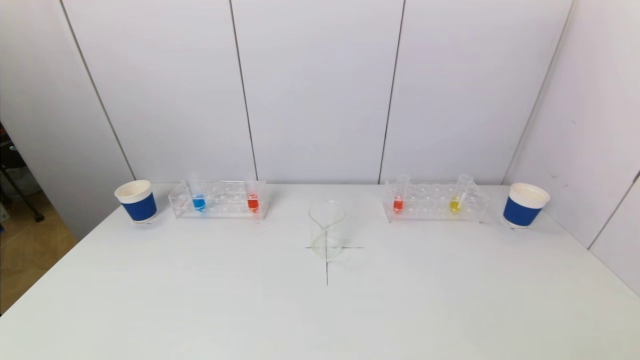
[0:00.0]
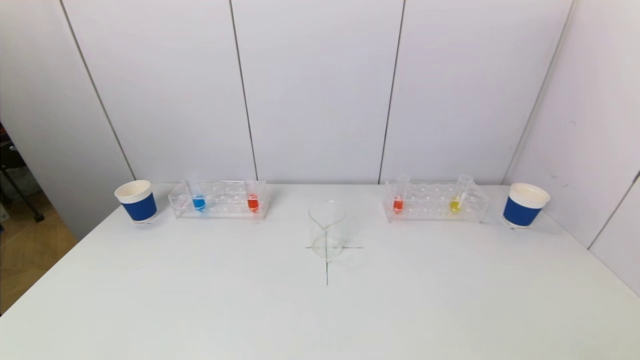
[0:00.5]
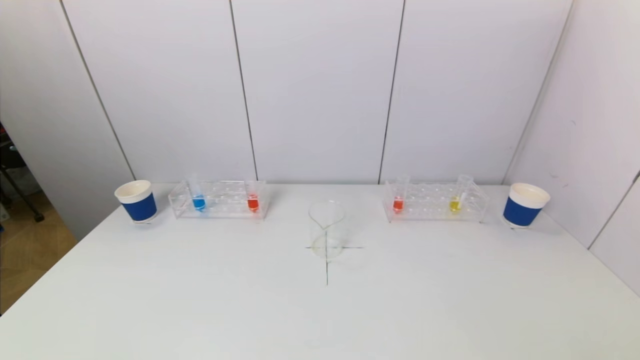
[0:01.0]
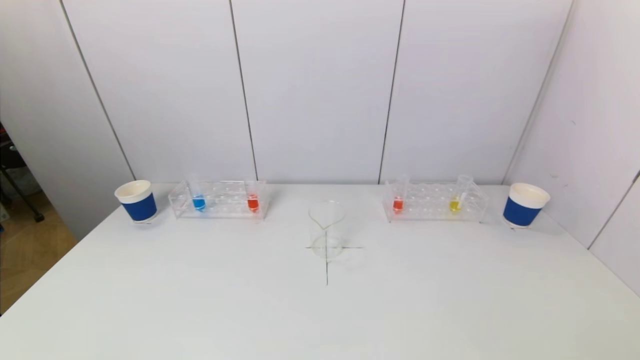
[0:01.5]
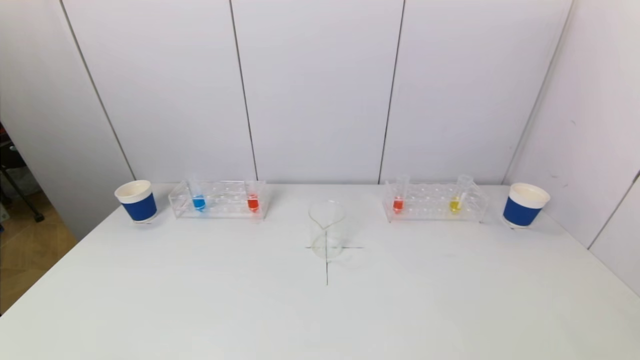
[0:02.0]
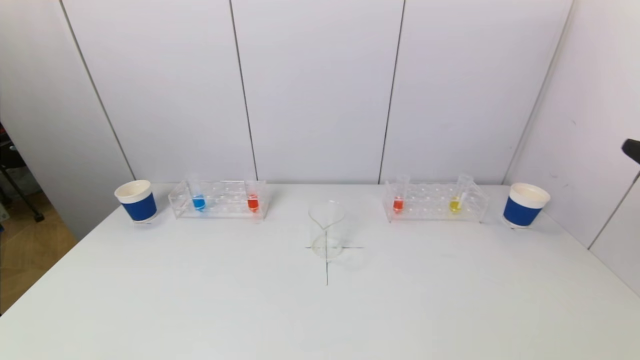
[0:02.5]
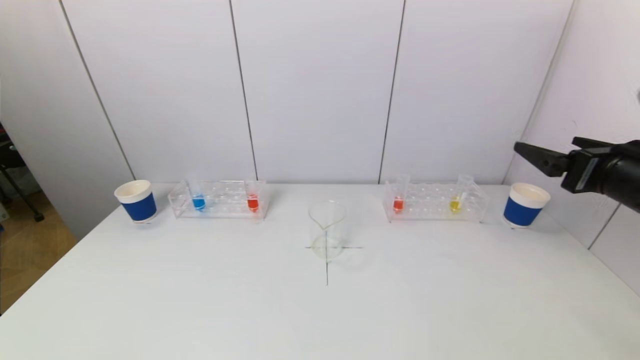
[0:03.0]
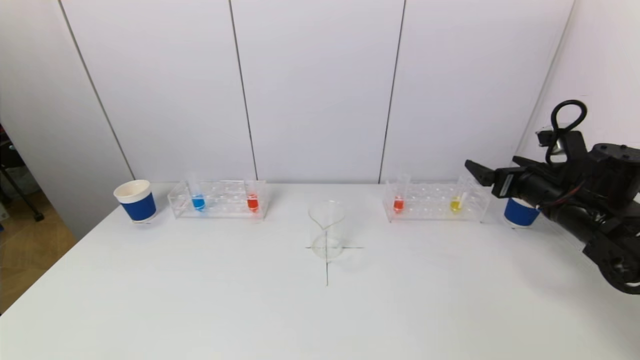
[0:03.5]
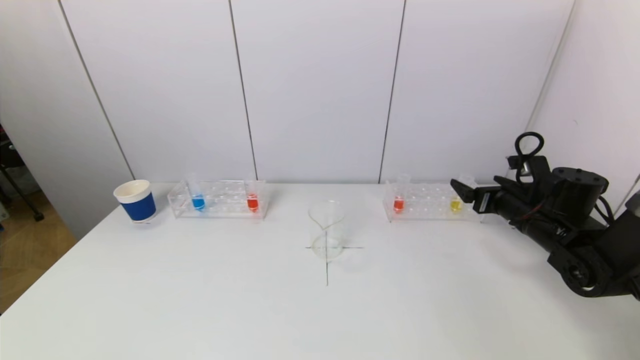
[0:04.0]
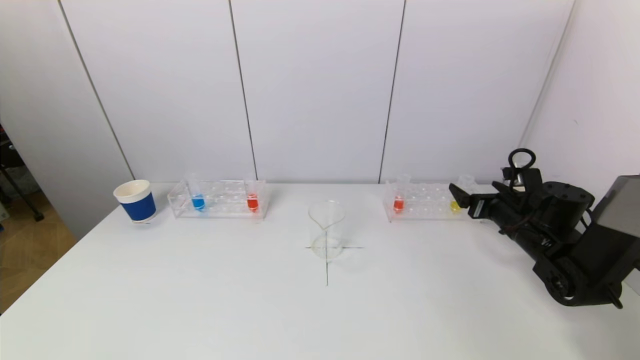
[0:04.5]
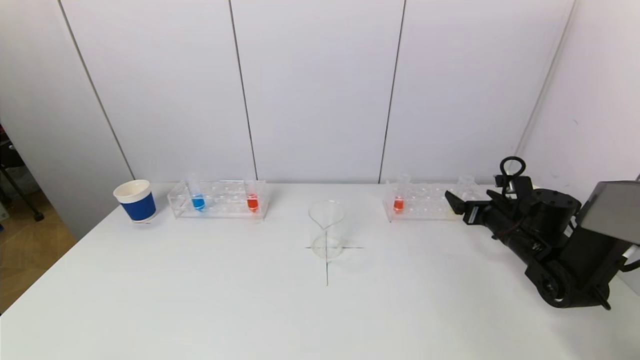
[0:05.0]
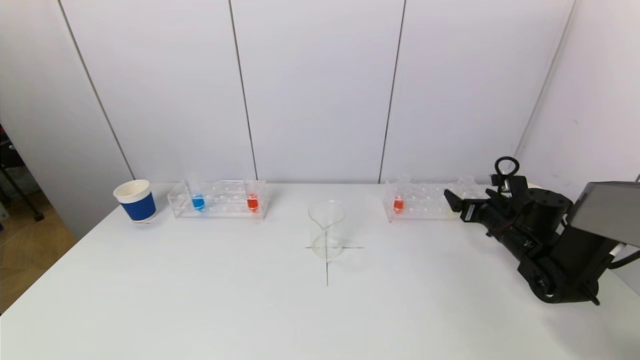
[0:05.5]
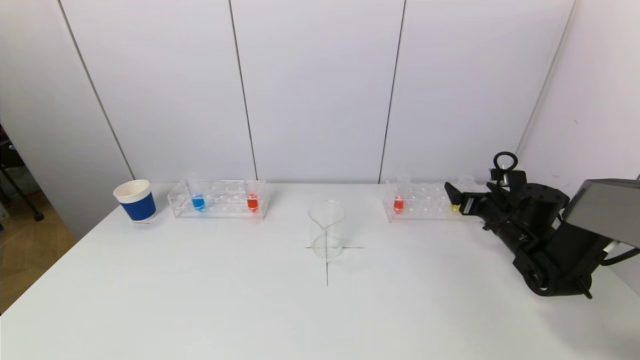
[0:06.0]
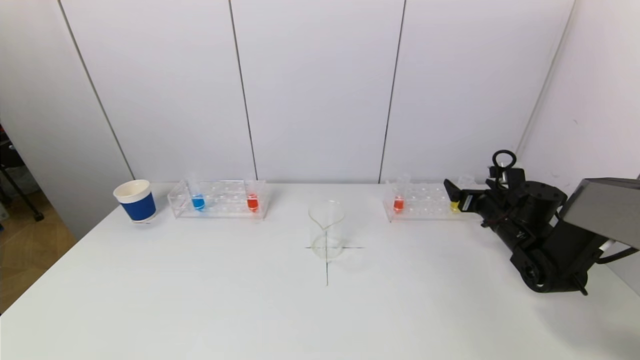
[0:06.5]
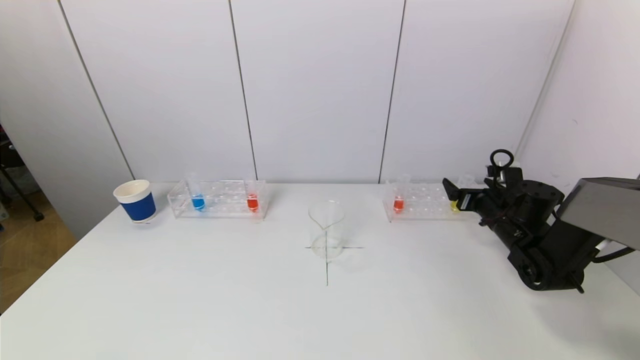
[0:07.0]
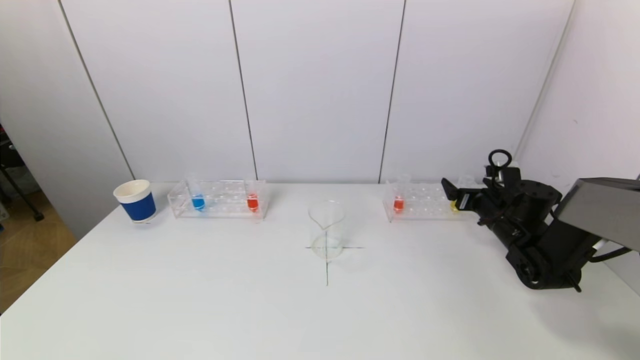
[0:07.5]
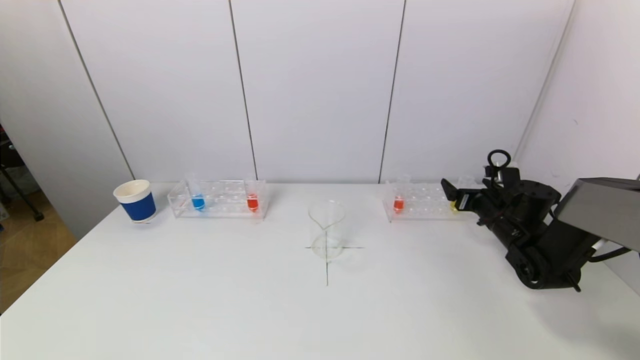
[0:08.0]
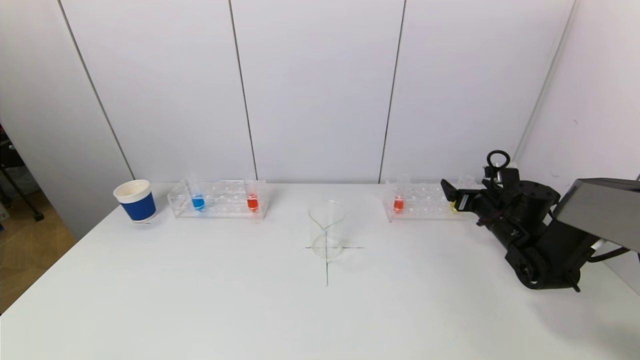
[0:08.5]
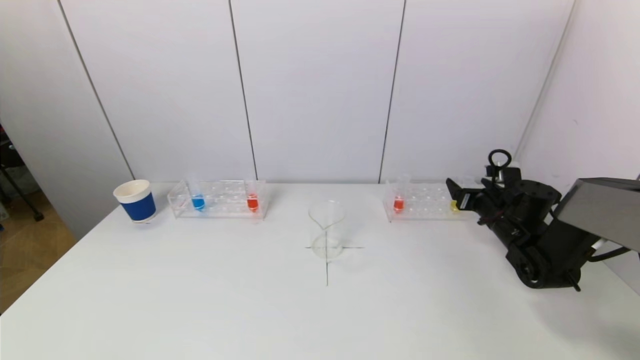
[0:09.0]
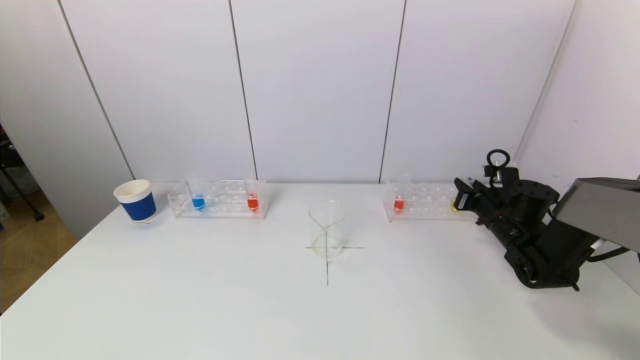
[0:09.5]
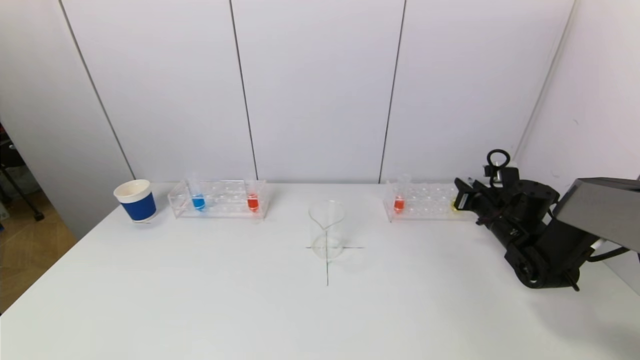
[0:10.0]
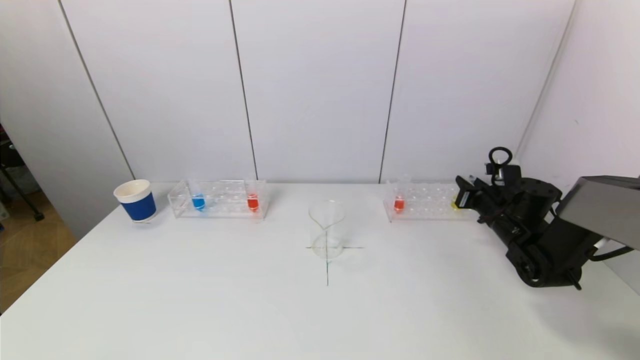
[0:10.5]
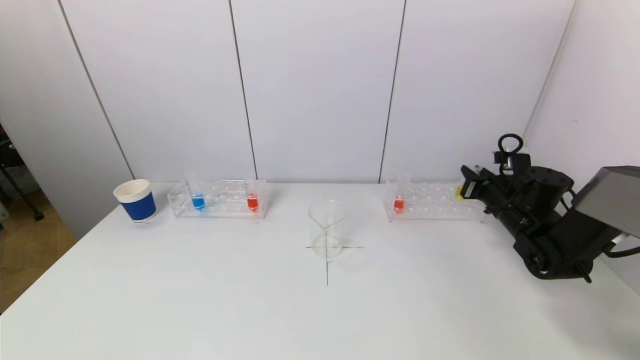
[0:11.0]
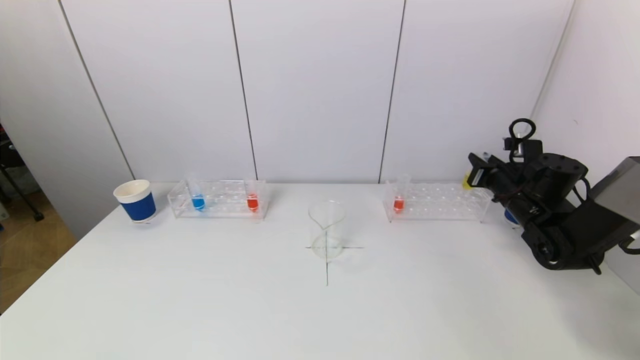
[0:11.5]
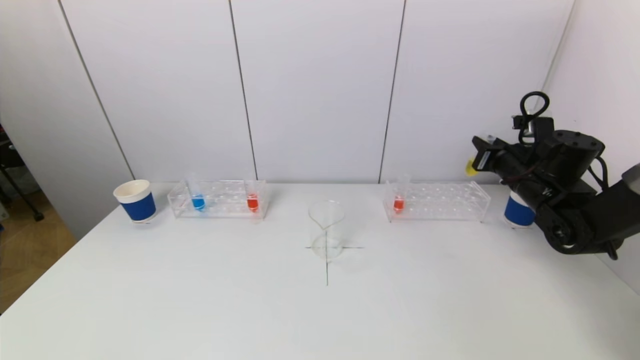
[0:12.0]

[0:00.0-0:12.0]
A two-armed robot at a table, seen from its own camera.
Task of the whole recording: pick up a test tube with pigment on left test tube rack and a test tube with pigment on right test tube rack by grippers and pour them into the beaker.
Step, 0.0 to 9.5 s: Grasp the yellow reagent with the right gripper.
2.0 to 4.0 s: The right gripper shifts about 35 cm forward.
4.0 to 6.0 s: The right gripper moves roughly 5 cm.
6.0 to 8.0 s: Both grippers stay put.
10.0 to 12.0 s: The right gripper shifts about 10 cm upward.

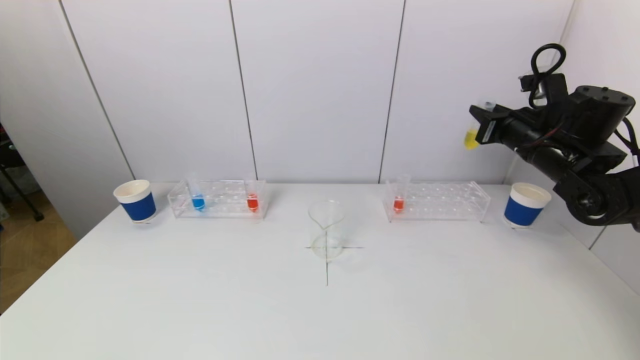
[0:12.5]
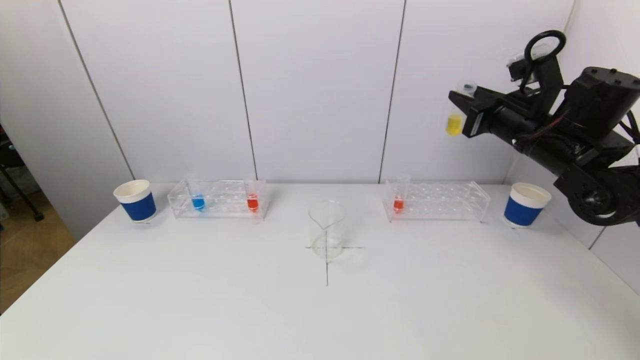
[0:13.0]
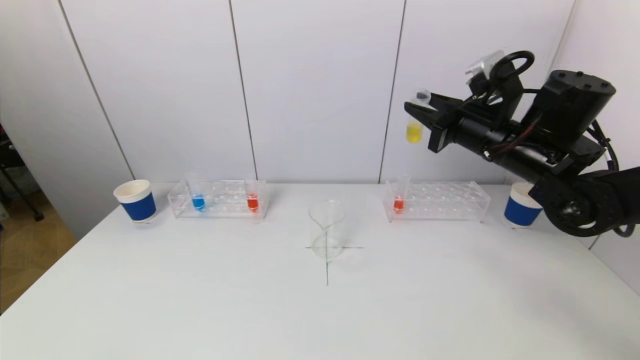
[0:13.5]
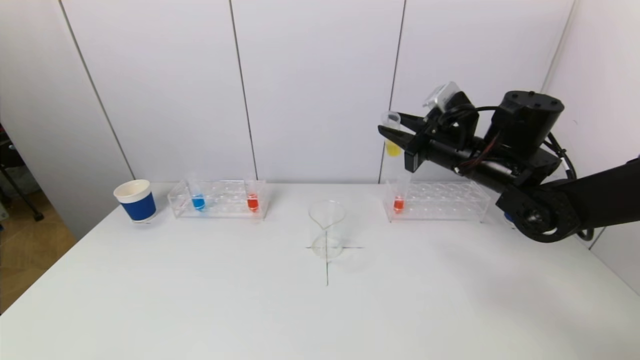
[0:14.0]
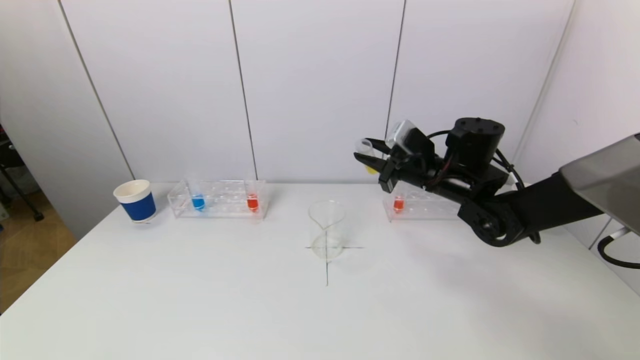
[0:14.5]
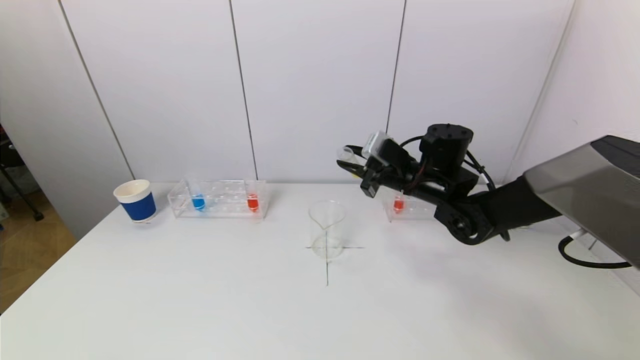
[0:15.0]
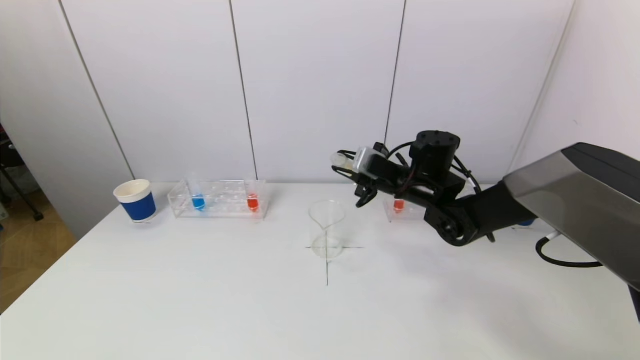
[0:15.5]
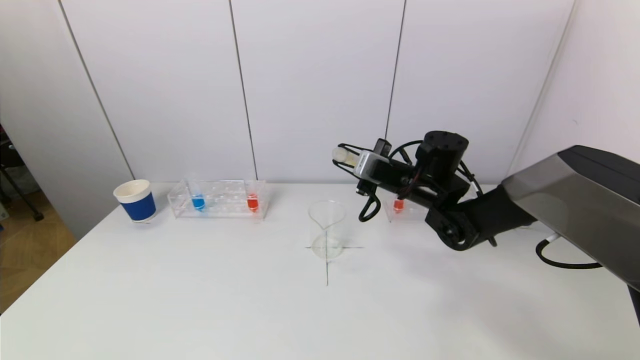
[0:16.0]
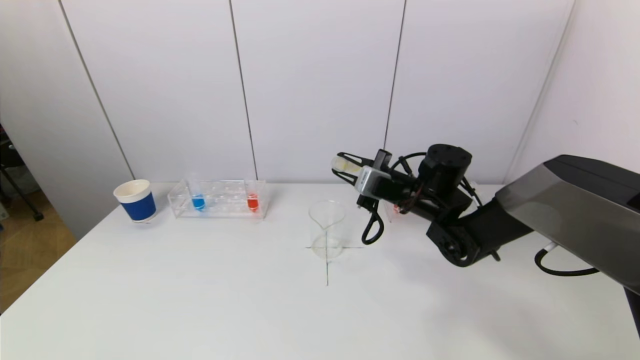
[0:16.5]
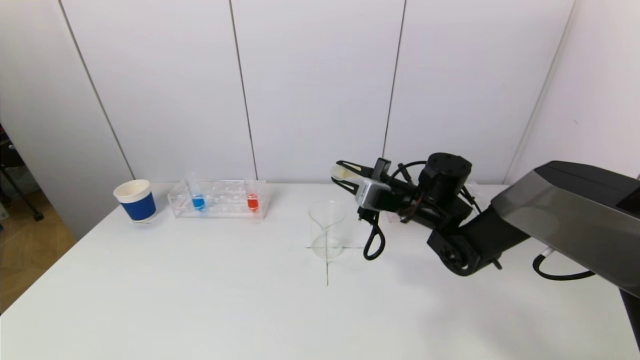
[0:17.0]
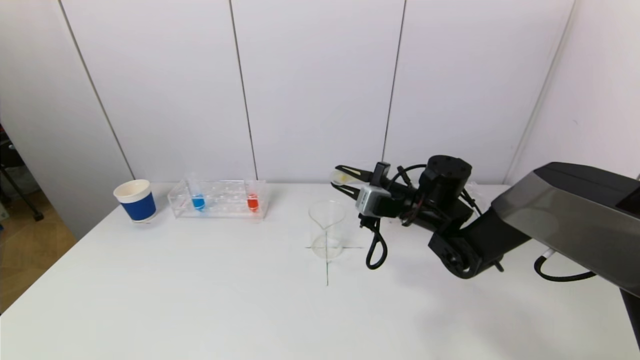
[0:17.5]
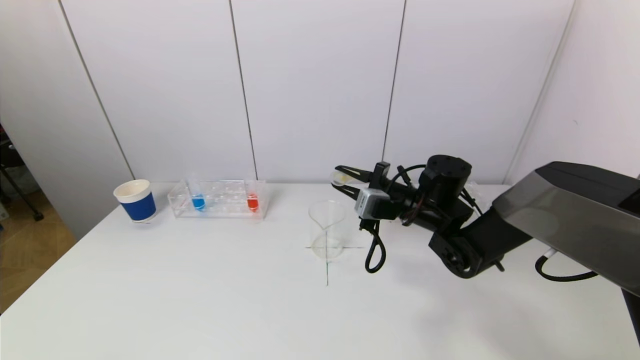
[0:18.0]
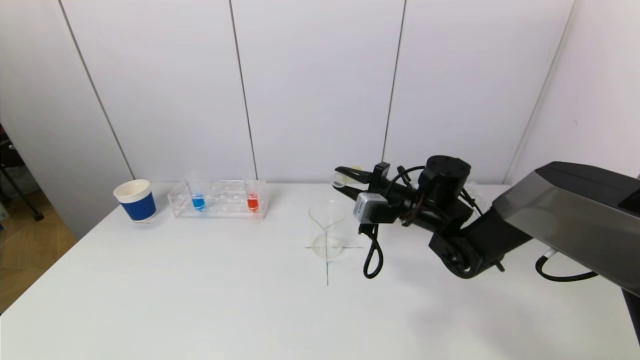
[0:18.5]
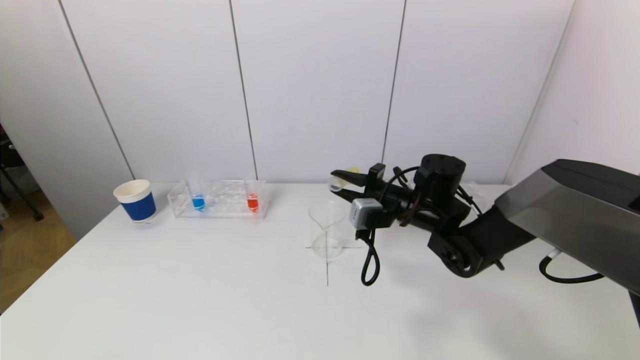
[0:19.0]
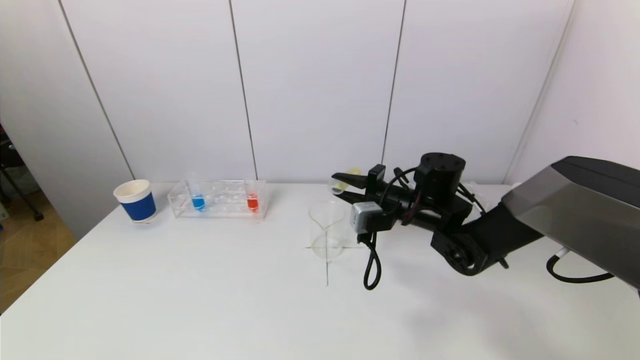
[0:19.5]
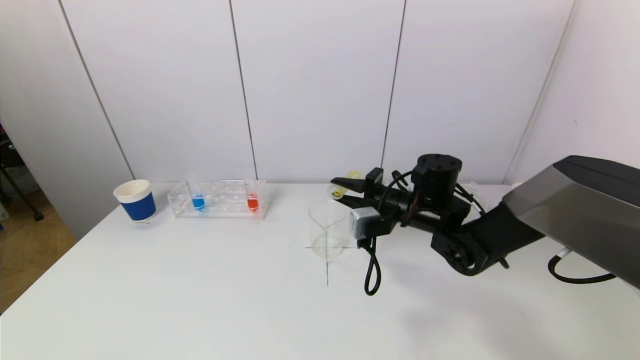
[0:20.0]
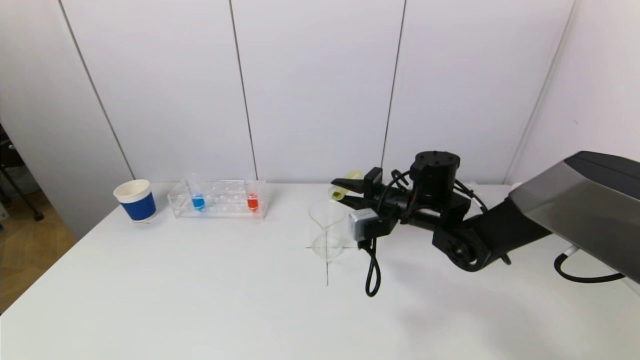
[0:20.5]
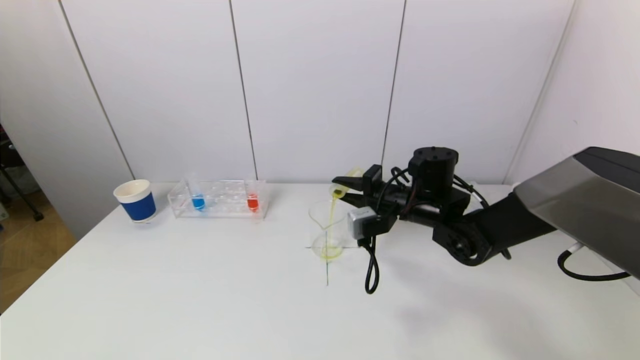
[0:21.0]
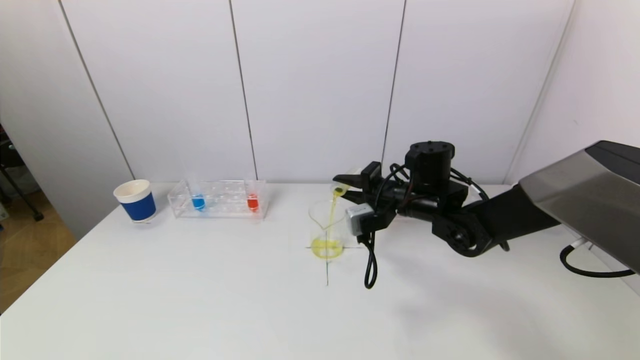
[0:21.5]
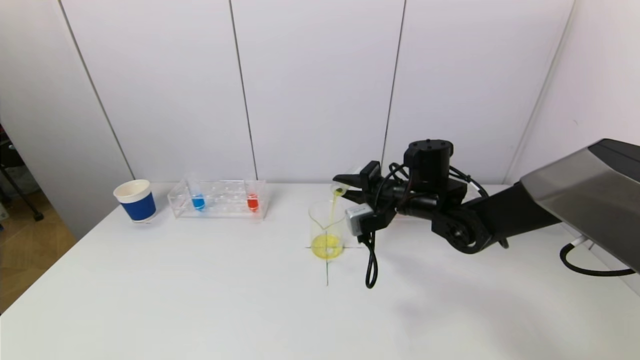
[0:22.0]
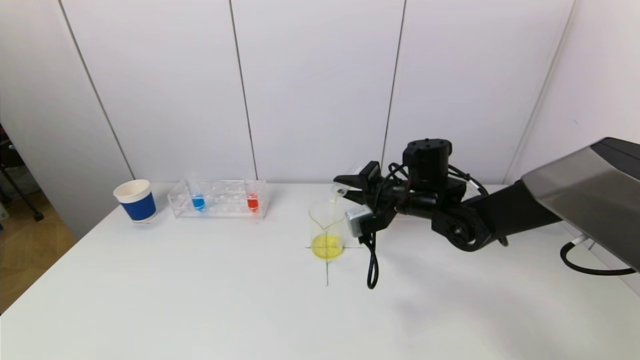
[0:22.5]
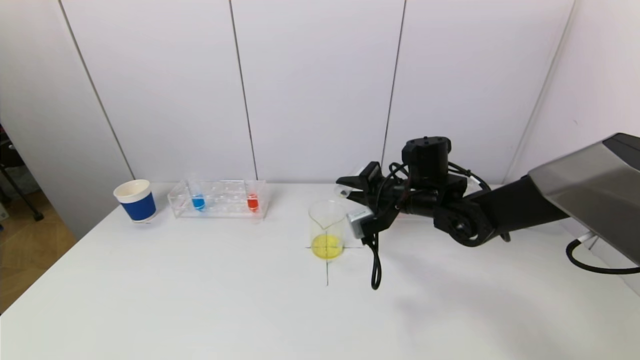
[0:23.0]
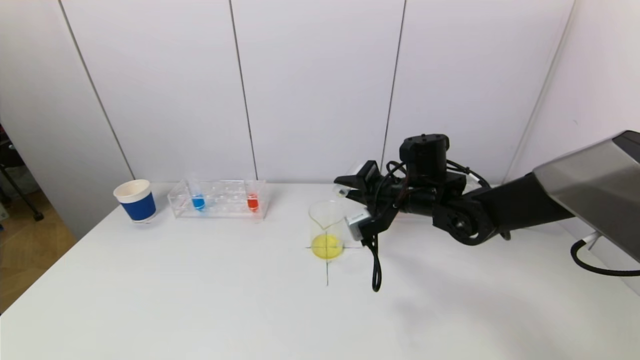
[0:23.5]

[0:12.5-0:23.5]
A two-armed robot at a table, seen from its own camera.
Task of the whole recording: pick up a test tube with pigment on left test tube rack and a test tube with pigment on right test tube rack by grippers and pour them into the beaker.
12.5 to 14.5 s: The right gripper heads to the left, covering roughly 15 cm.
16.0 to 18.0 s: The grippers make only small movements.
18.0 to 20.0 s: The grippers make only small movements.
20.0 to 21.5 s: The grippers move only a little.
21.5 to 23.5 s: There are only small adjustments of the grippers.
